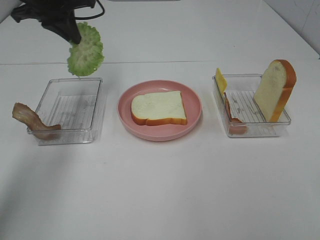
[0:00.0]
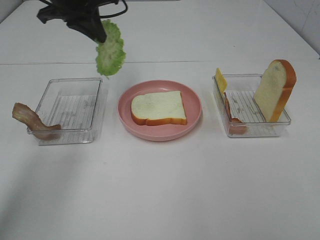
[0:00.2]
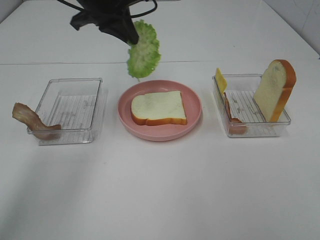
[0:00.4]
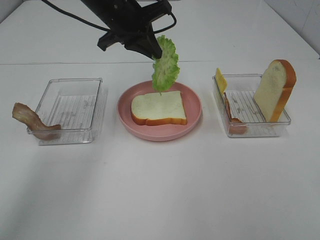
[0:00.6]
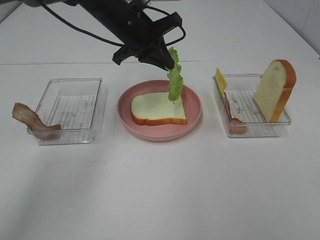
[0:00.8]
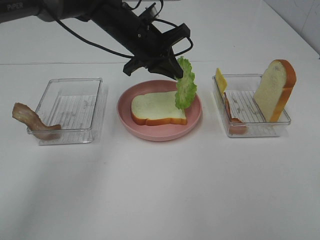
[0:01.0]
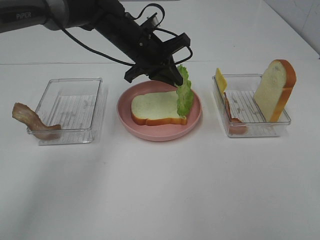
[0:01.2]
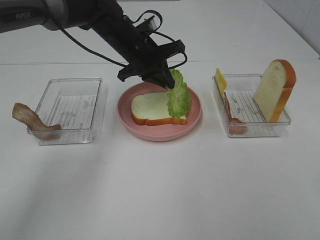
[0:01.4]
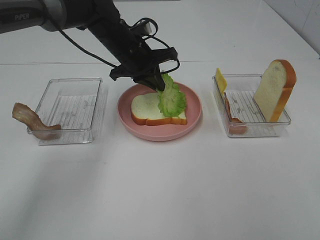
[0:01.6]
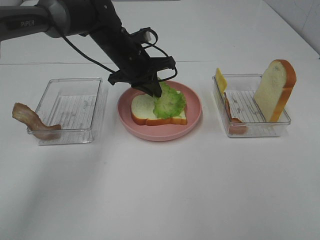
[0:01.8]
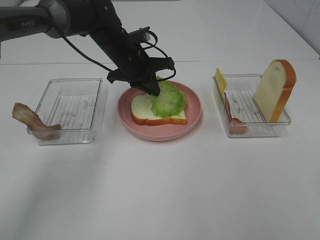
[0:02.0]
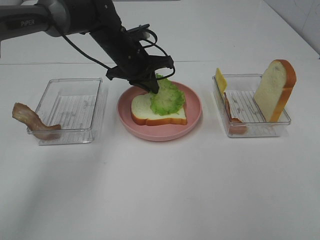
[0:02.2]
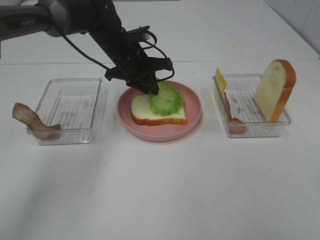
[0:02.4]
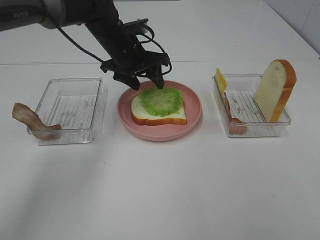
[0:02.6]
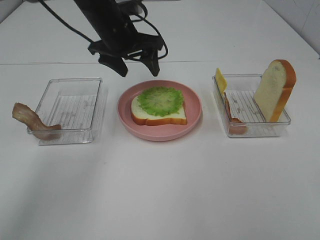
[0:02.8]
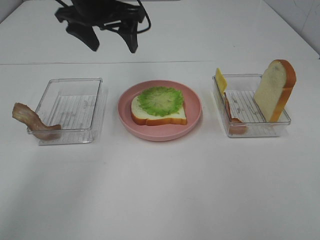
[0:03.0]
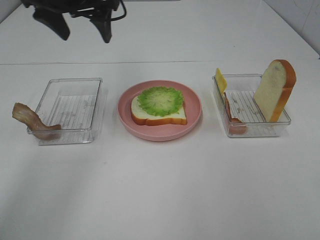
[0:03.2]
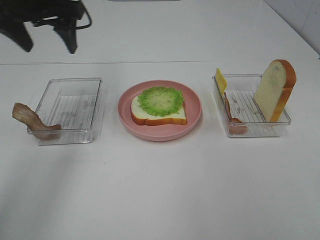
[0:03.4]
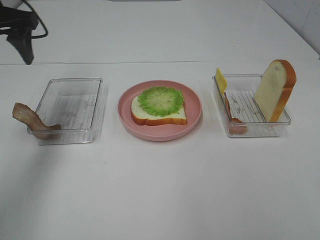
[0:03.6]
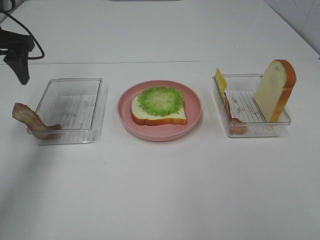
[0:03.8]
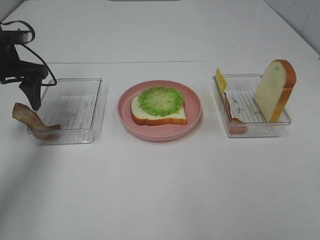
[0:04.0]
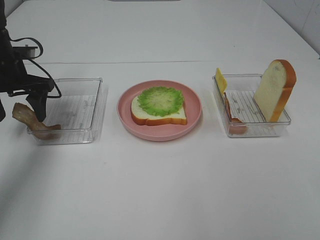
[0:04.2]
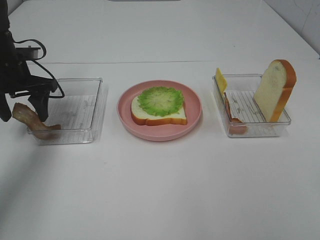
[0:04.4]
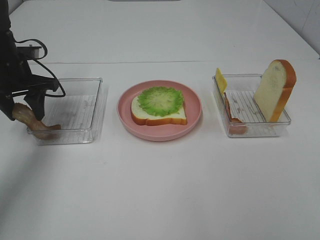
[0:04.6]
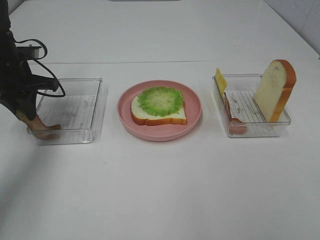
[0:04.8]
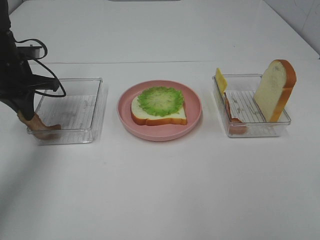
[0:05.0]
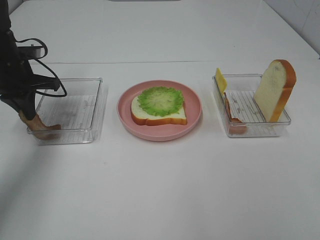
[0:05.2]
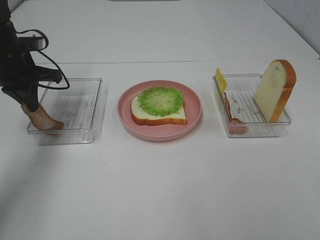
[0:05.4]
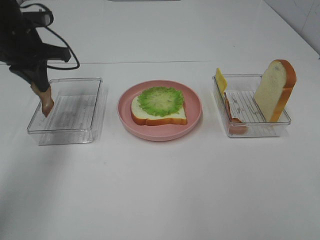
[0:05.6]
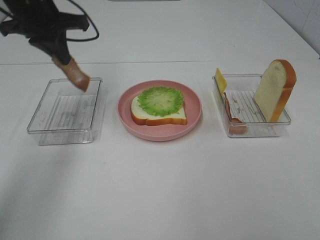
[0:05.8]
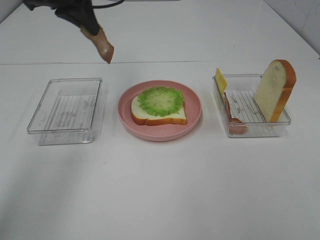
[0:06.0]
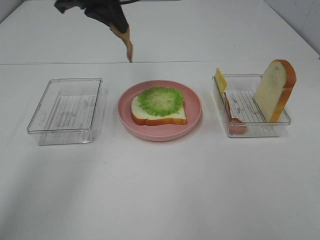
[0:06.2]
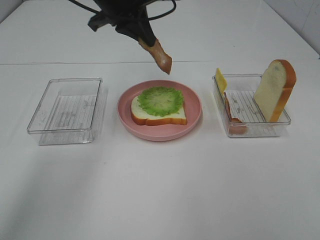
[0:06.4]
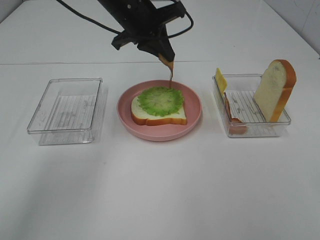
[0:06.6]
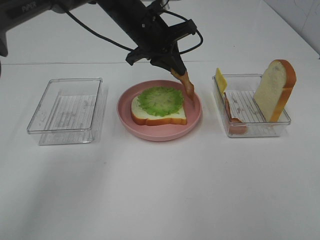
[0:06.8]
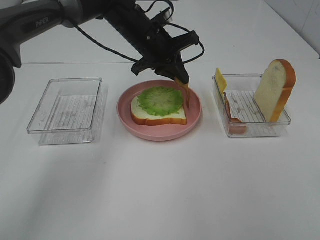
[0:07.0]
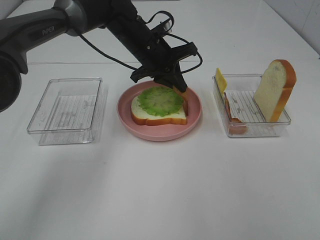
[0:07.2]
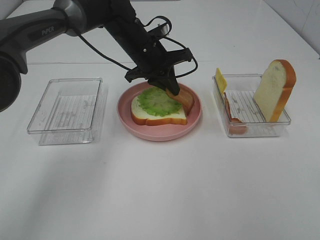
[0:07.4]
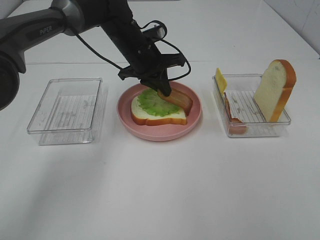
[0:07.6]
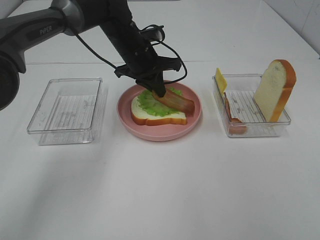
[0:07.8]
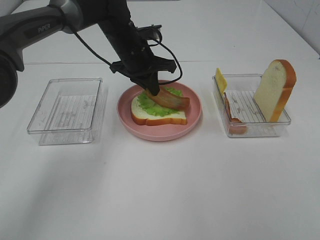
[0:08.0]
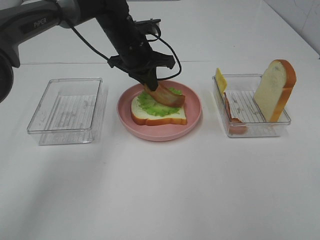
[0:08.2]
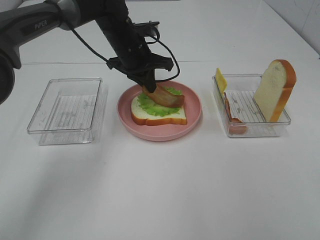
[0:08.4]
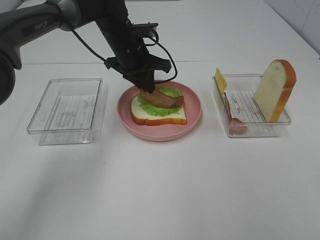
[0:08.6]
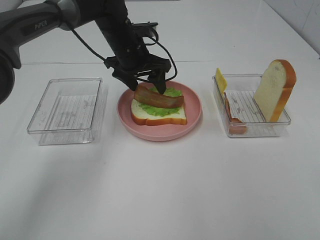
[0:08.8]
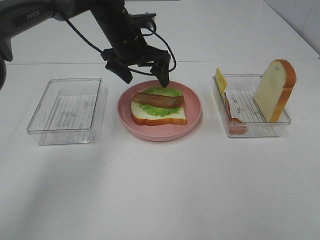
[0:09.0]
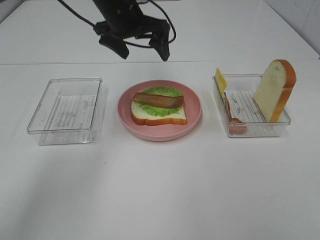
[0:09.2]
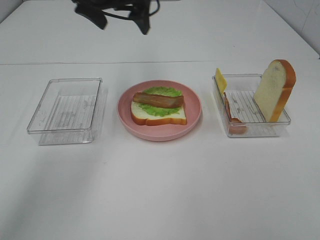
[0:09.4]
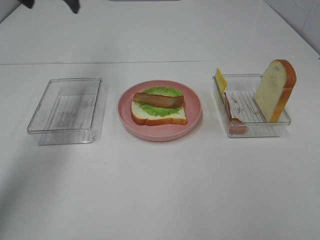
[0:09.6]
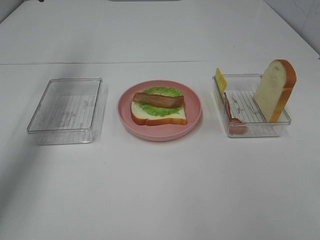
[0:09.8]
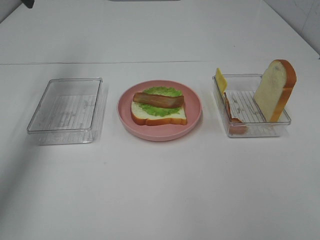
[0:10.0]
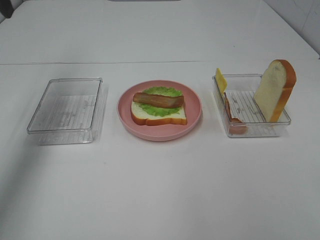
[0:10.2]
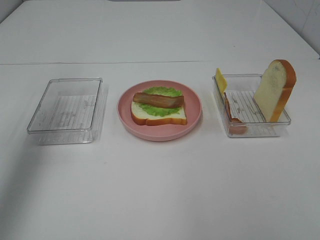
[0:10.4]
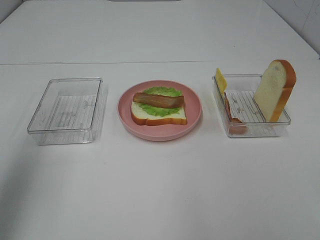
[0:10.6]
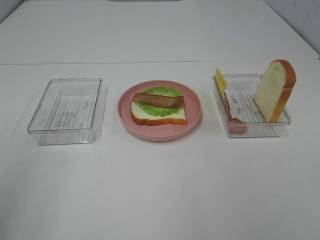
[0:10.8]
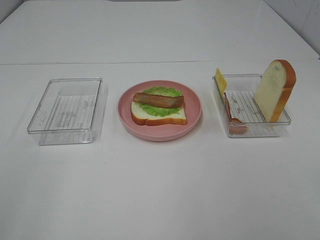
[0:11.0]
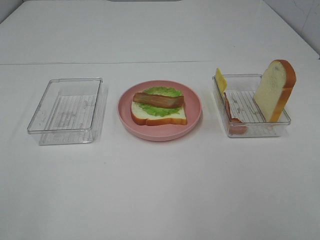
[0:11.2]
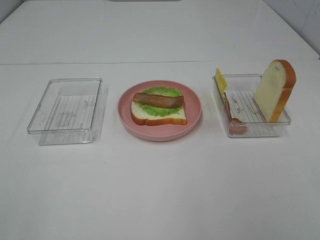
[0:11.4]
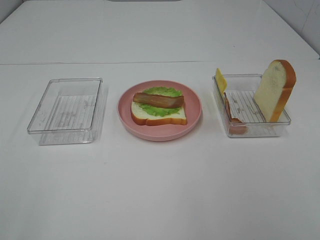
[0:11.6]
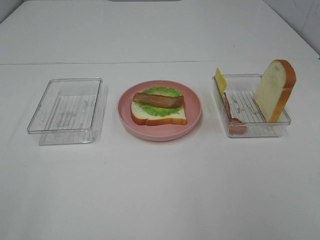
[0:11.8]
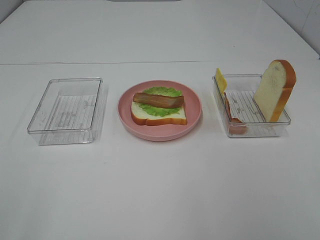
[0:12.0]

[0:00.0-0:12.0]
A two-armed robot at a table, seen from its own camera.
Task of the whole recording: Make sandwiches.
Step, 0:00.0 to 0:02.6: Left hand:place the lettuce slice on the bread slice.
Step, 0:02.8 to 0:05.0: Left hand:grab the bacon.
Step, 0:05.2 to 0:09.2: Left hand:place bacon on lettuce slice.
0:00.0 to 0:01.6: The left gripper goes roughly 20 cm to the right and downward.
0:01.6 to 0:03.0: The left gripper travels upward by roughly 10 cm, and opens up.
0:03.0 to 0:04.4: The left gripper shifts some 20 cm to the left and downward.
0:04.4 to 0:06.0: The left gripper travels upward and to the right by approximately 20 cm, and closes its fingers.
0:06.0 to 0:07.6: The left gripper goes about 20 cm downward and to the right.
0:07.6 to 0:09.0: The left gripper opens its fingers.
0:09.0 to 0:10.4: The left gripper shifts some 35 cm to the left, upward and backward.
0:10.4 to 0:12.0: The left gripper moves backward, some 30 cm.

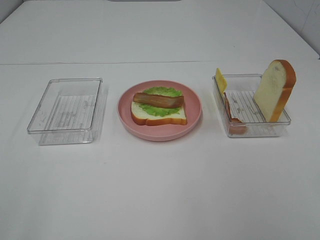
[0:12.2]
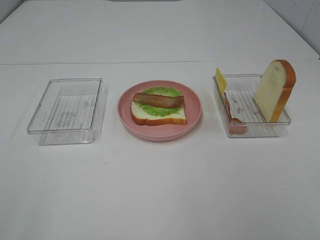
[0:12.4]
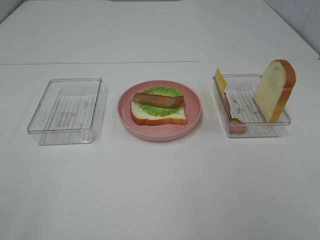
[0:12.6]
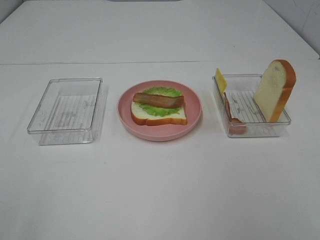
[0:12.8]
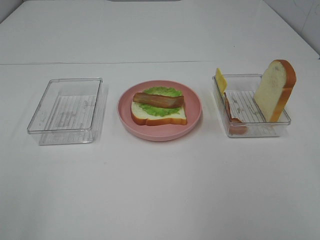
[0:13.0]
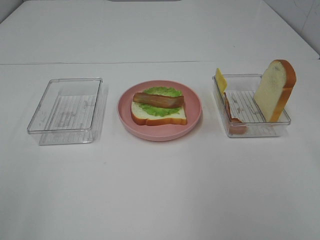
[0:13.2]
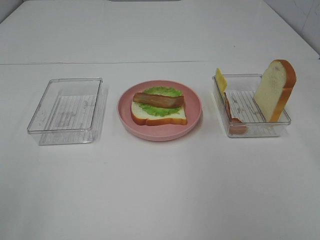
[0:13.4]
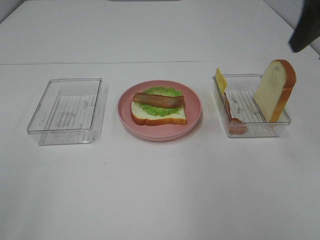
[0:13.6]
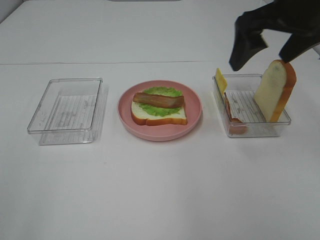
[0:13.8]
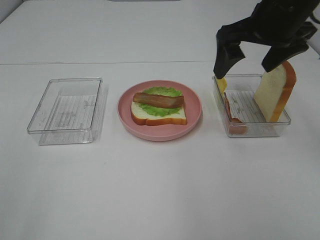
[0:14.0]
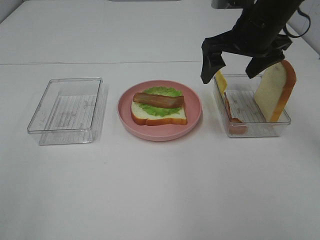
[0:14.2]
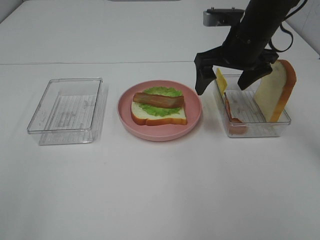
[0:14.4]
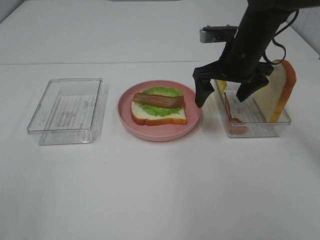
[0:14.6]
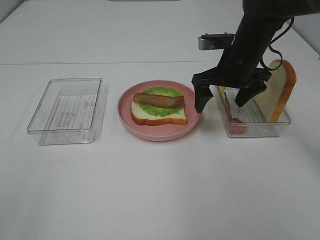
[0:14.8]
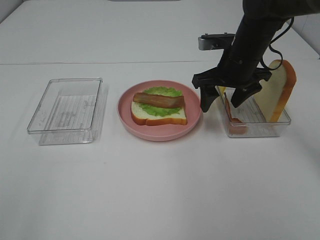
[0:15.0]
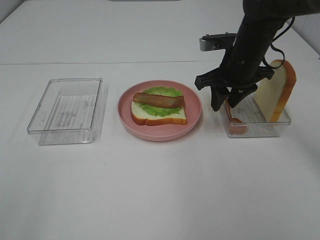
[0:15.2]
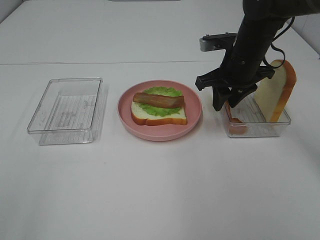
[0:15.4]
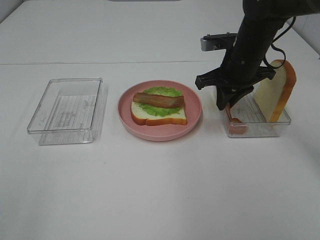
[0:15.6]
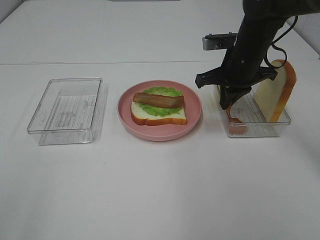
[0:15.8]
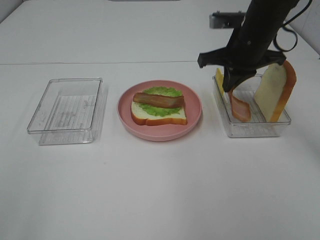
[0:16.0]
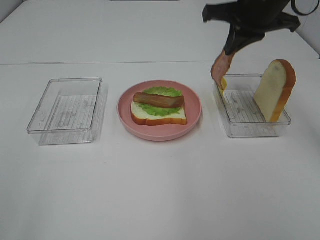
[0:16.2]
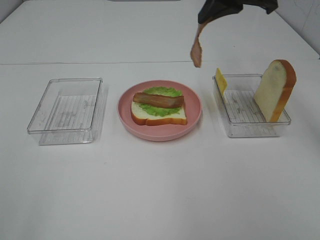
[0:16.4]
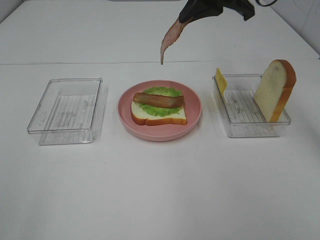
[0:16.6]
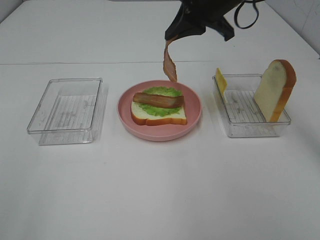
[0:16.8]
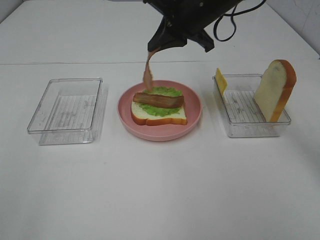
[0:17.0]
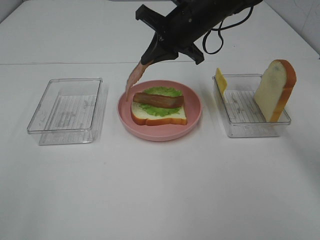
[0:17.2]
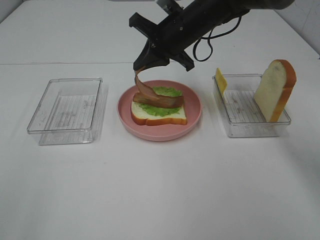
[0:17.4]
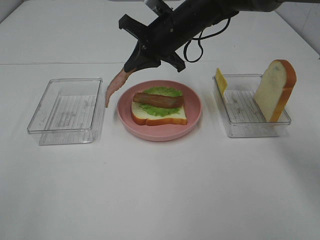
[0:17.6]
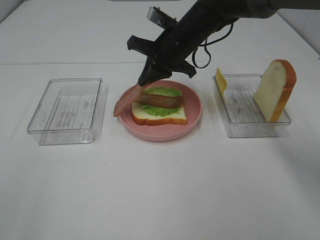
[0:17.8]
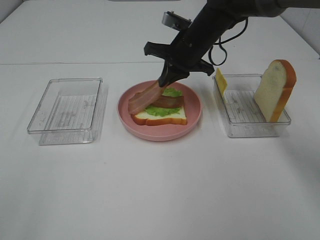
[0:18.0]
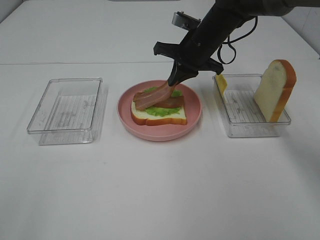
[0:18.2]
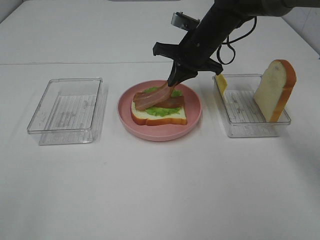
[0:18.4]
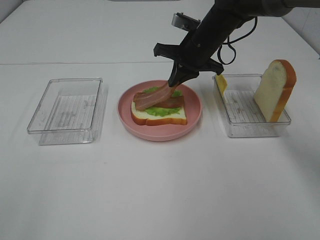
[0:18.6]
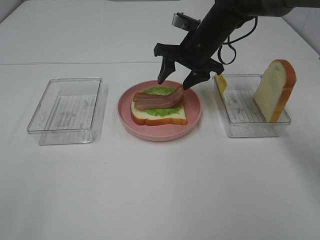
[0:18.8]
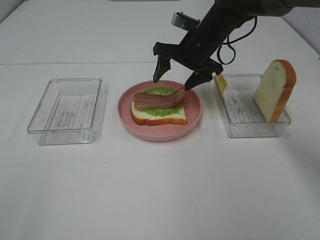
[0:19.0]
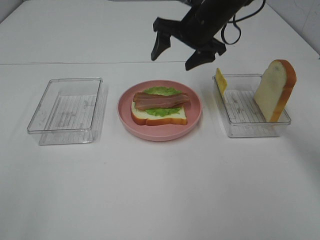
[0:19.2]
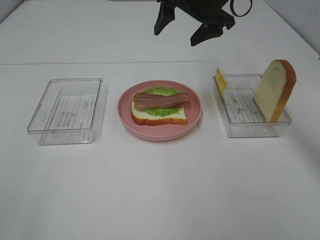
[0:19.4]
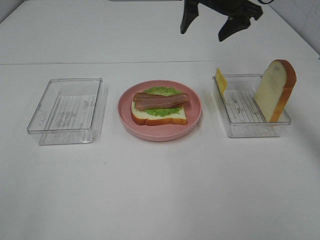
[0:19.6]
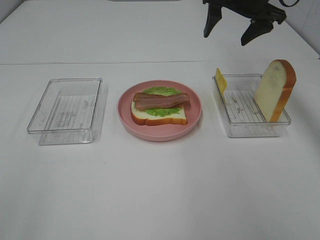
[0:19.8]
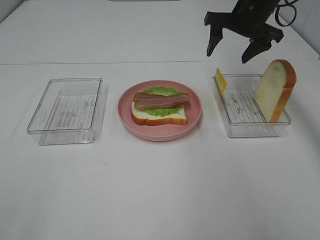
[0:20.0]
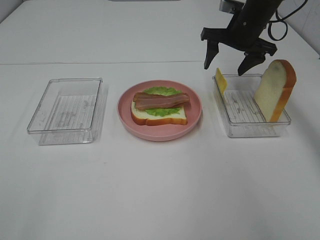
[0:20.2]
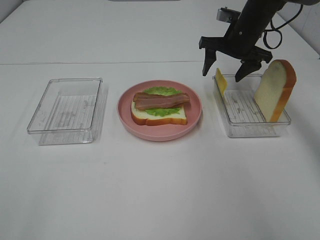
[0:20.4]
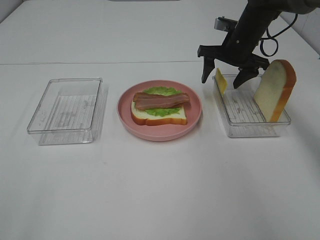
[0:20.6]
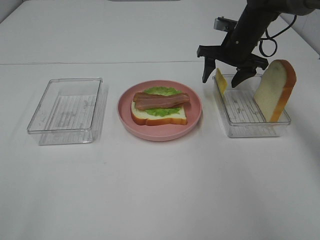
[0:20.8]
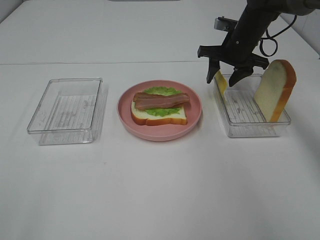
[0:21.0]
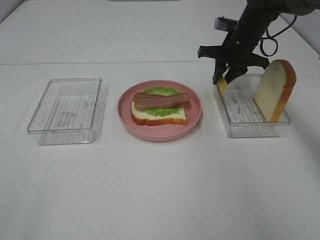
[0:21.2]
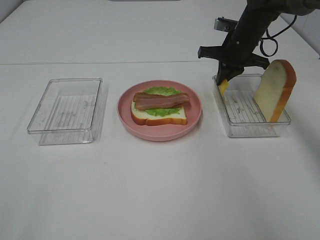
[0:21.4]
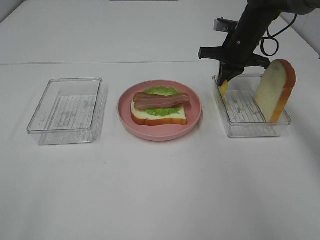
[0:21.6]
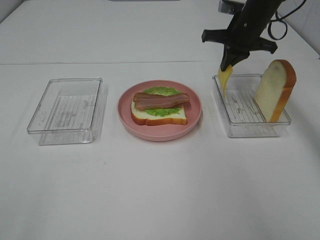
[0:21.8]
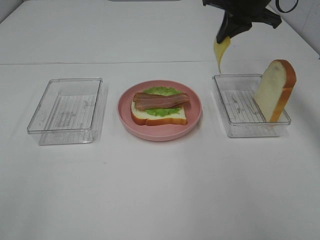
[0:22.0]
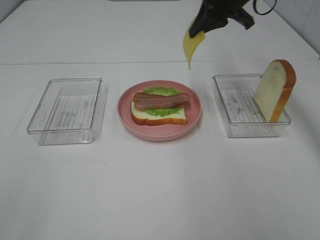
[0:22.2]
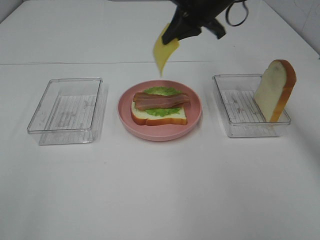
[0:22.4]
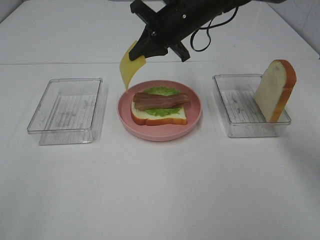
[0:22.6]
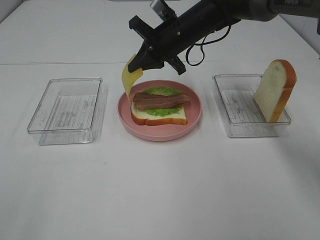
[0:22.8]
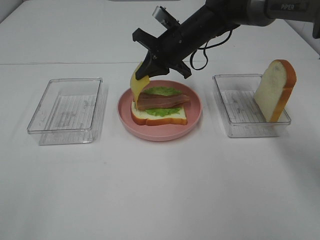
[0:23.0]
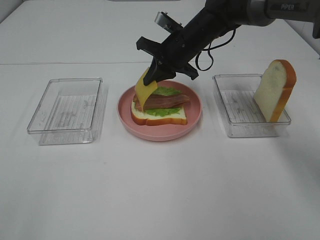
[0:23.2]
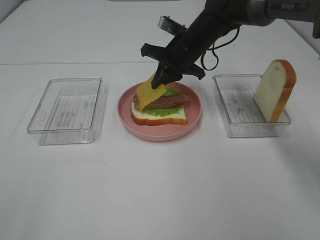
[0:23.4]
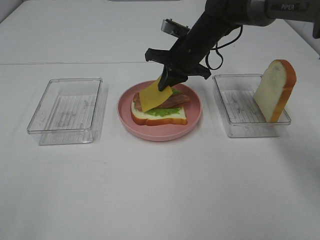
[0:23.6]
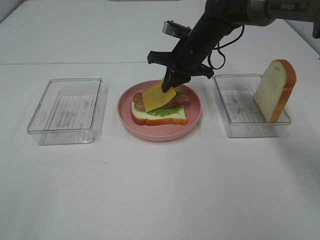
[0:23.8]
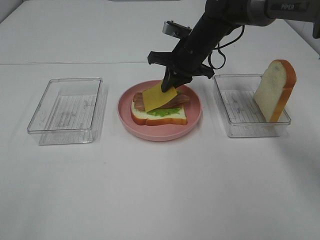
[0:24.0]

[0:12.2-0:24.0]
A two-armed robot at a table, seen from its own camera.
Task of the whole recording: Make sandwiches.
Step, 0:12.2 to 0:15.8: Right hand:grab the bacon.
Step, 0:16.0 to 0:19.2: Right hand:place bacon on bacon.
Step, 0:19.4 to 0:21.6: Right hand:grab the cheese slice.
0:12.2 to 0:13.6: The right gripper moves forward, approximately 30 cm.
0:13.6 to 0:15.2: The right gripper is displaced downward, forward and to the left by some 25 cm, and closes.
0:15.2 to 0:16.6: The right gripper is displaced upward by roughly 15 cm, and closes up.
0:16.6 to 0:18.2: The right gripper is displaced downward and forward by some 15 cm.
0:18.2 to 0:19.6: The right gripper moves upward, some 10 cm, and opens up.
0:19.6 to 0:21.0: The right gripper goes roughly 15 cm downward.
0:21.0 to 0:22.6: The right gripper goes approximately 15 cm to the left and upward, and closes.
0:22.6 to 0:24.0: The right gripper heads downward, covering about 5 cm.
